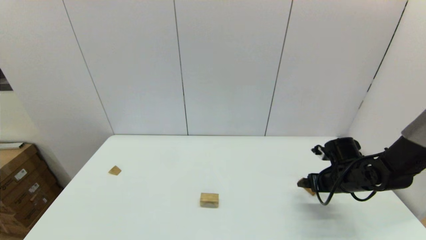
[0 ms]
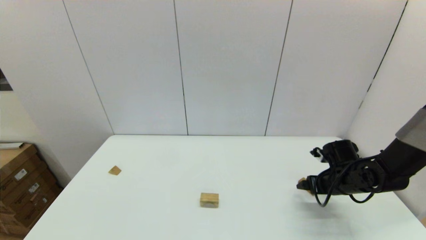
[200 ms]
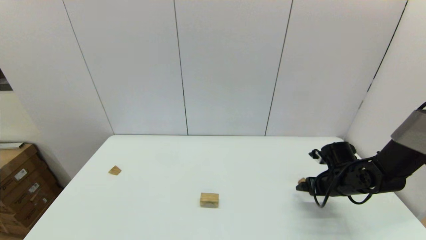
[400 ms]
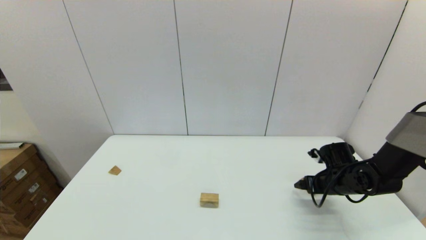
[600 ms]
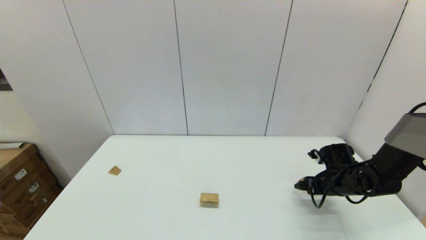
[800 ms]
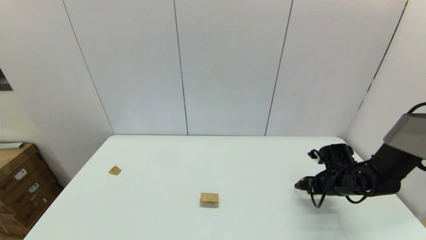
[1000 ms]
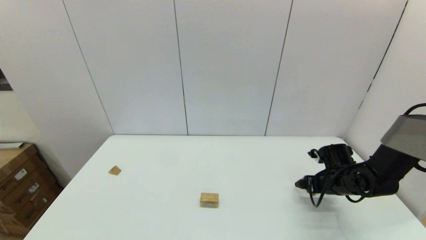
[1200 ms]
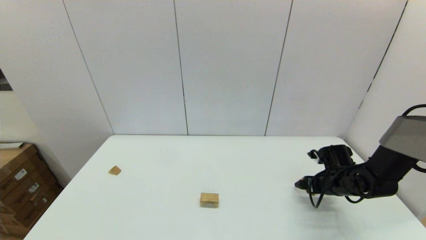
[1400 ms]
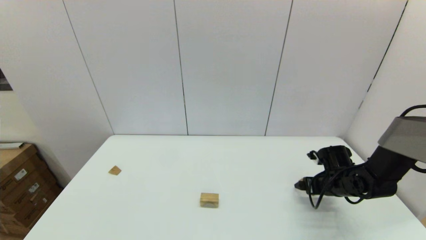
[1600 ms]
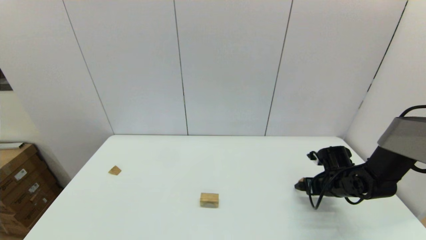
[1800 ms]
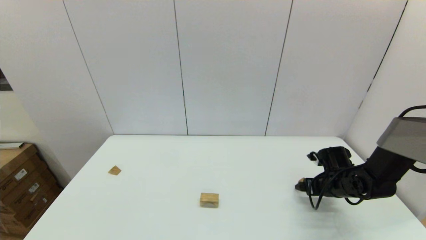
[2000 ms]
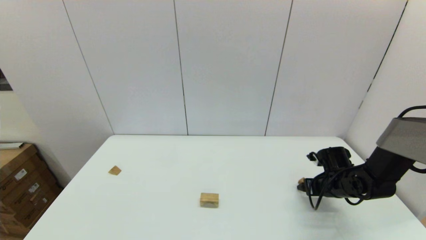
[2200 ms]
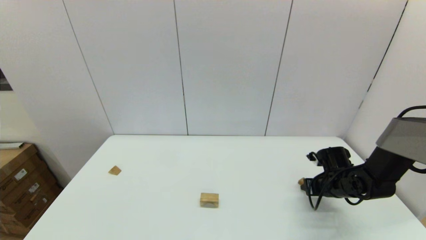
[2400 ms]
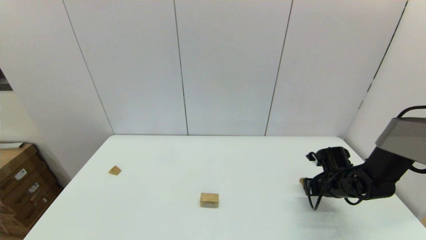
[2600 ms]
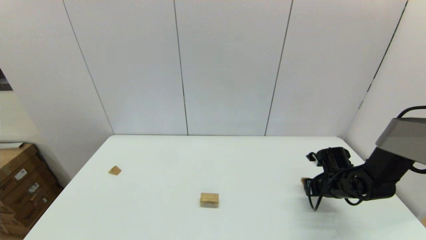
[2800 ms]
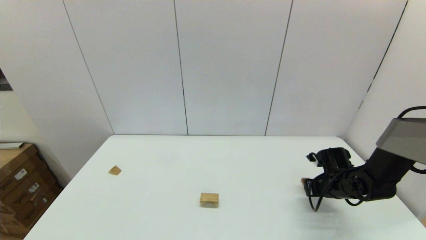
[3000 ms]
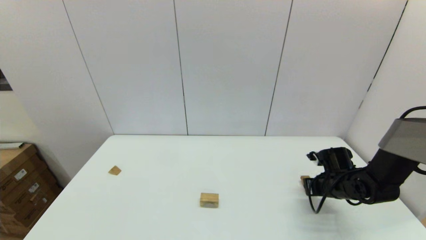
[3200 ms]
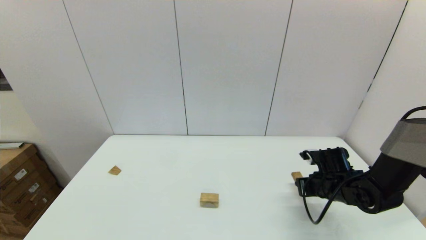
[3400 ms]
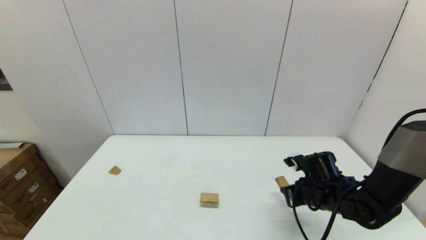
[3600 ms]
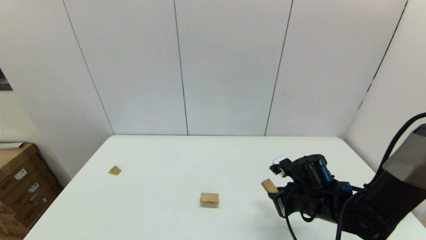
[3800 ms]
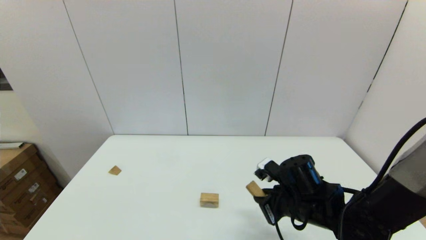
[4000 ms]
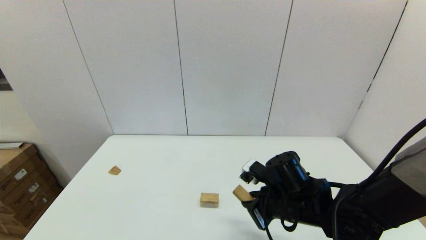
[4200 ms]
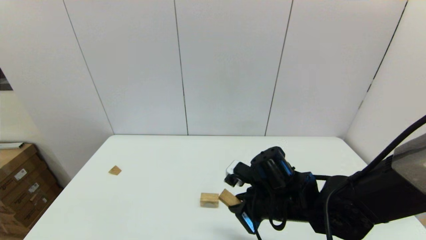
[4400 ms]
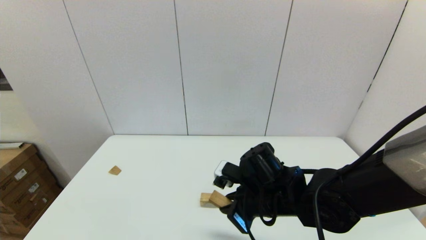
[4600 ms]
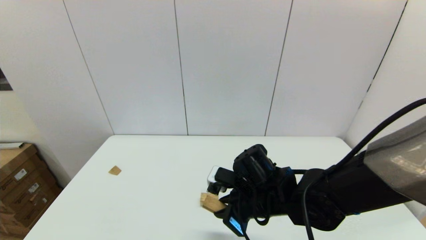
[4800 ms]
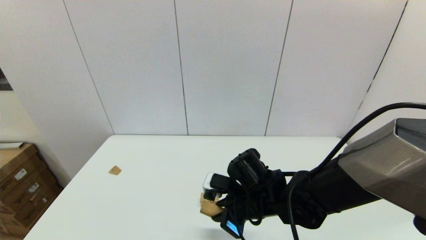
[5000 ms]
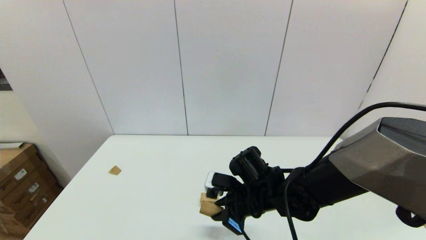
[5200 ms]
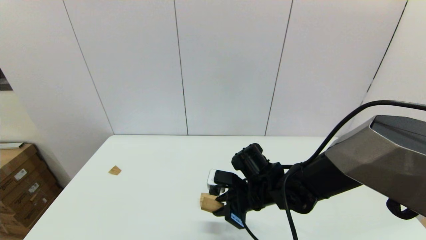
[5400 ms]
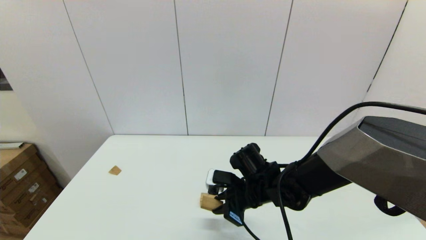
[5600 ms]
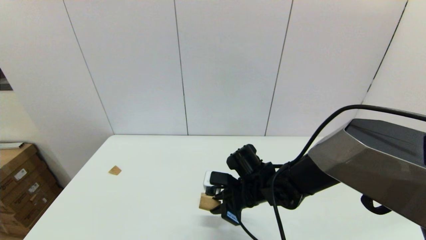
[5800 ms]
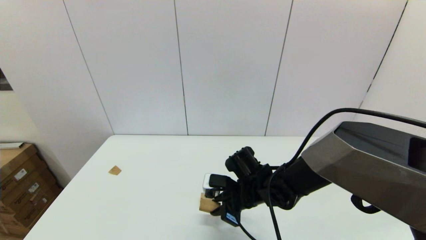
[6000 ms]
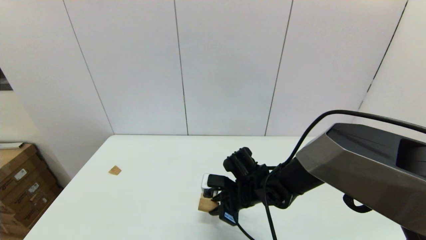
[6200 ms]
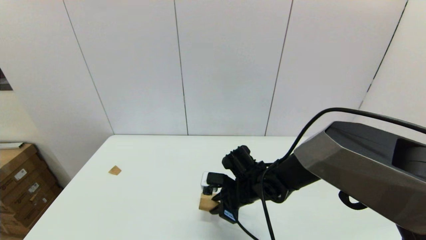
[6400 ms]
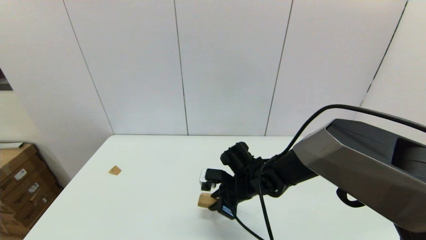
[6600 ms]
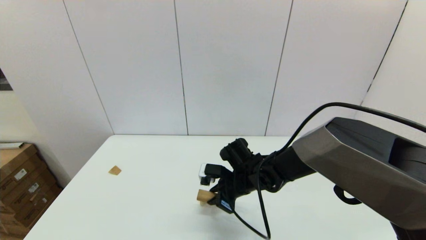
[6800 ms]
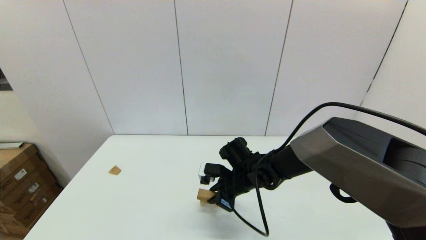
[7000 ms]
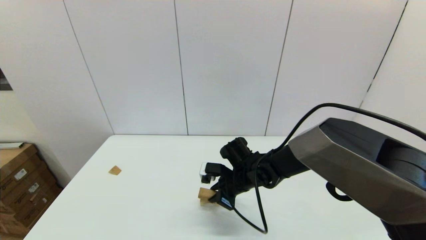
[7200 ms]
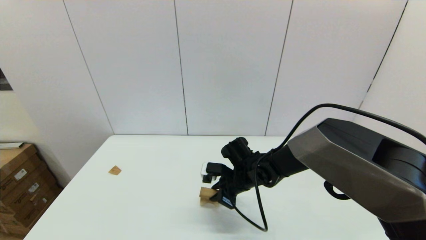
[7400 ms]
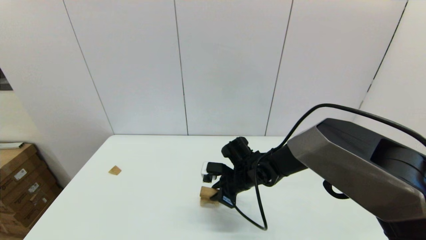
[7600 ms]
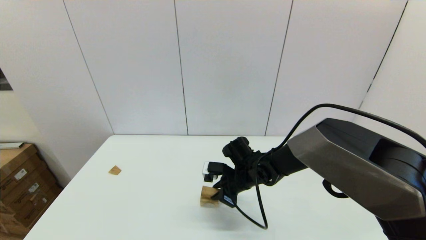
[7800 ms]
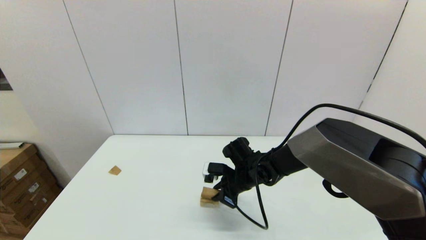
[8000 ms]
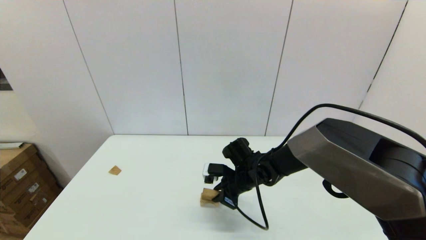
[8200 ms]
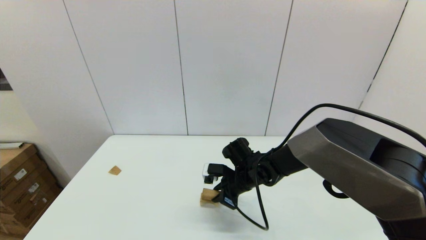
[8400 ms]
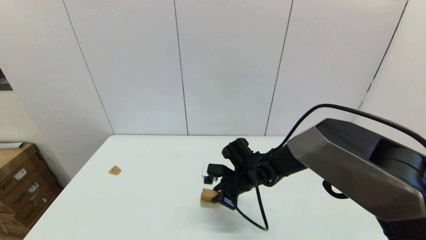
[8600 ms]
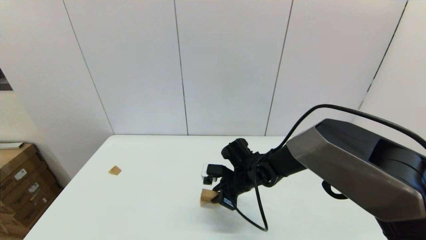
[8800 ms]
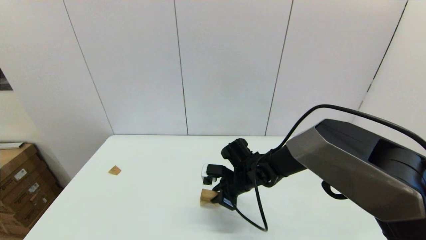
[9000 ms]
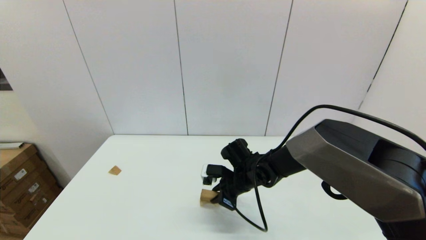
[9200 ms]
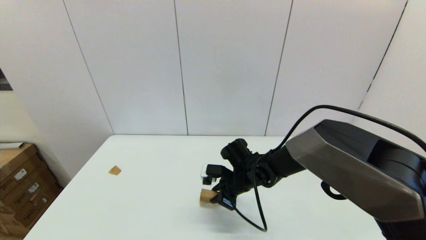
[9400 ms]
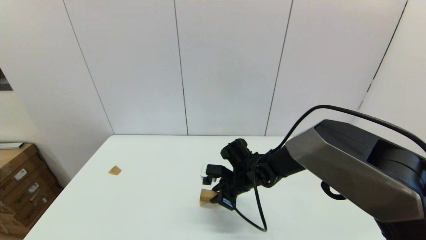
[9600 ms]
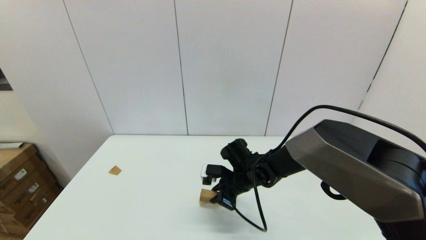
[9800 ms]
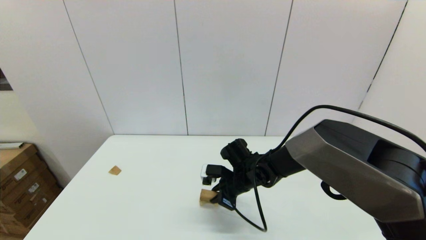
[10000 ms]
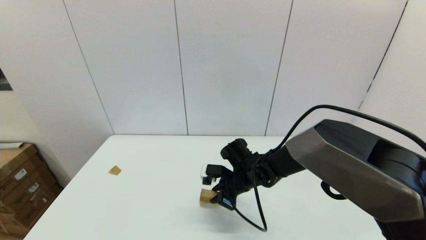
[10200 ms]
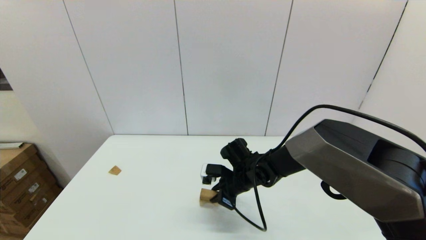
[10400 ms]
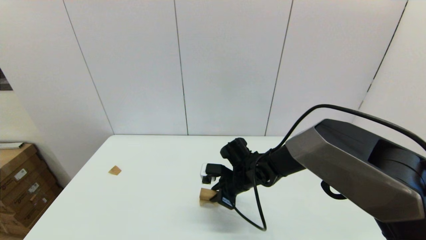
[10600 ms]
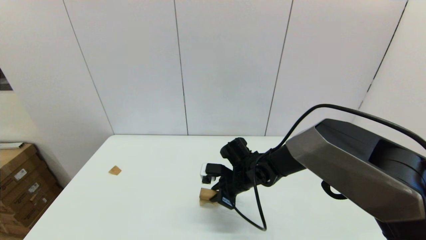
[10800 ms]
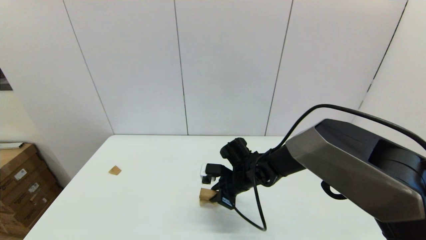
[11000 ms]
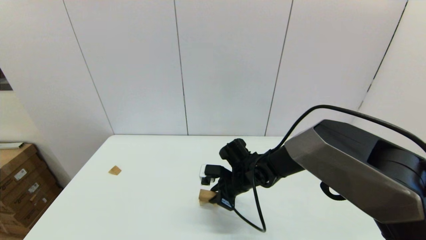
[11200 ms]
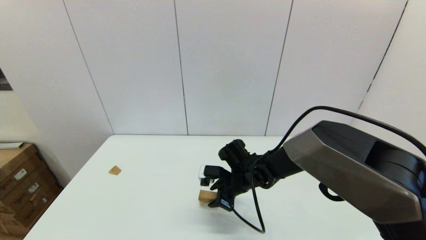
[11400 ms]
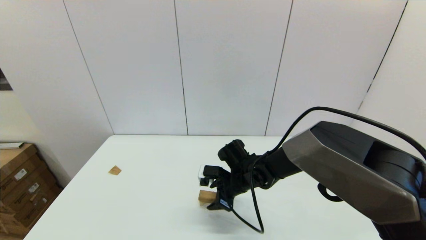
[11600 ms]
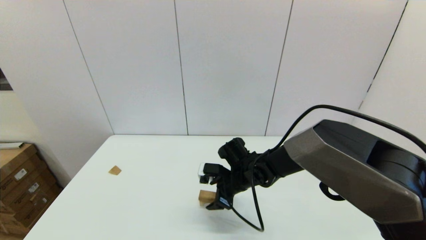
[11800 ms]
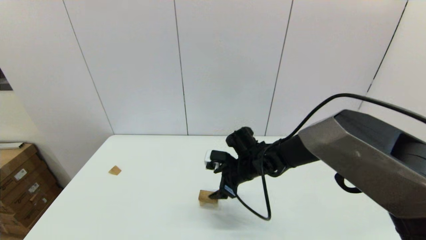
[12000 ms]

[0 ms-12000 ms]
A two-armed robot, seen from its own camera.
Task of the whole recording: place the arched building blocks in the center of the table, set up the rectangular building blocks, and then set up the triangular building blocks.
Step, 0 ms to 2600 ms: Grasp the box-shaped block with the right gripper.
Step, 2800 ms to 11200 ms: Place the box-shaped block onto the arch-shaped block with the right gripper.
0 ms to 1600 ms: There are only small adjustments of the grippers.
1600 ms to 3000 ms: The right gripper closes.
3000 ms to 4400 ms: The right gripper heads to the left, upward and backward, covering approximately 25 cm.
4400 ms to 6000 ms: The right gripper heads forward and downward, covering roughly 10 cm.
6000 ms to 7600 ms: There are only small adjustments of the grippers.
7600 ms to 10400 ms: Both grippers stay about where they are.
10400 ms to 12000 ms: The right gripper opens up.

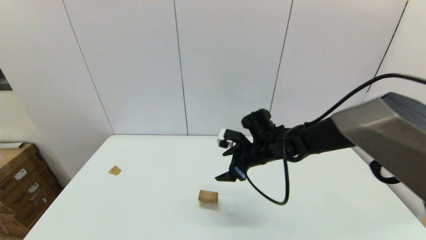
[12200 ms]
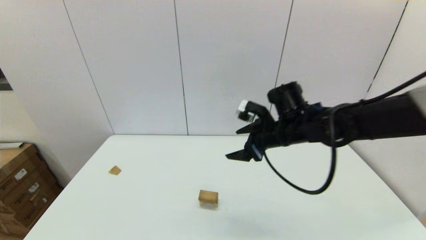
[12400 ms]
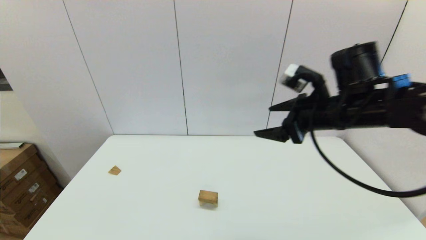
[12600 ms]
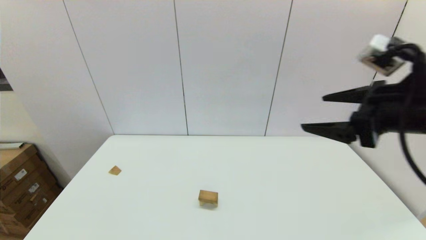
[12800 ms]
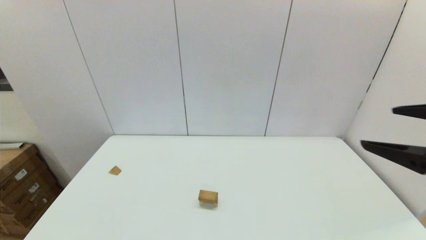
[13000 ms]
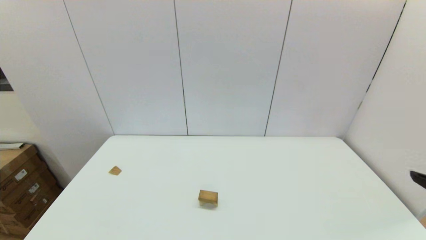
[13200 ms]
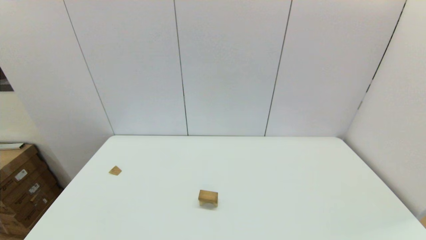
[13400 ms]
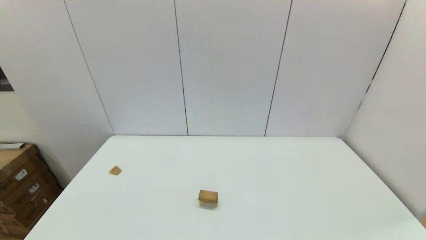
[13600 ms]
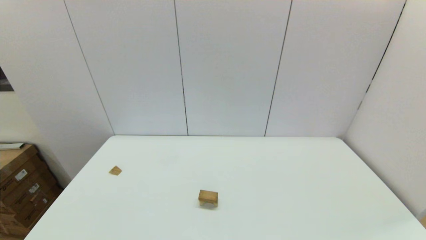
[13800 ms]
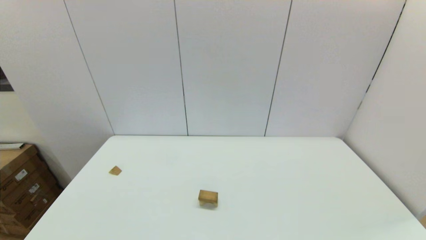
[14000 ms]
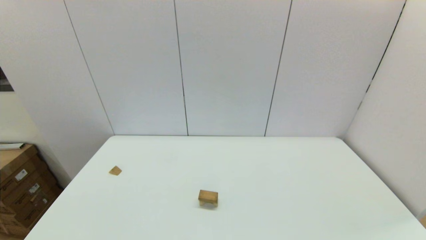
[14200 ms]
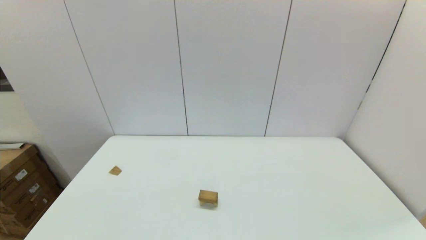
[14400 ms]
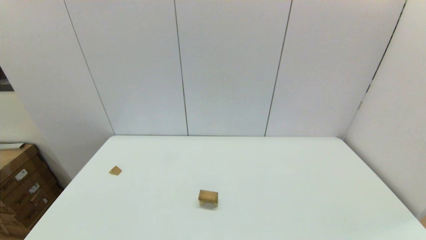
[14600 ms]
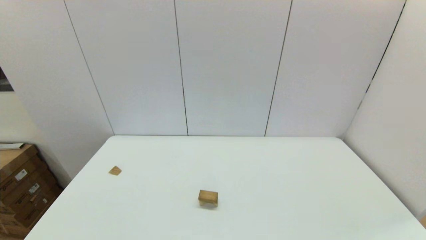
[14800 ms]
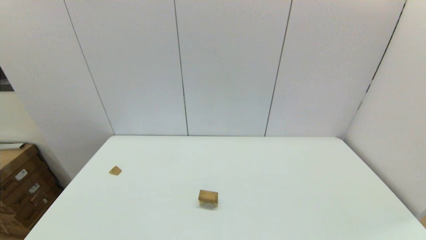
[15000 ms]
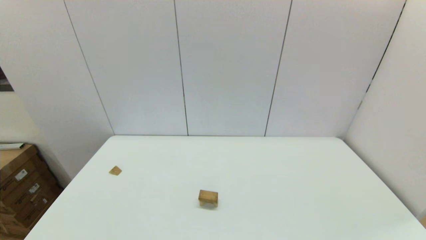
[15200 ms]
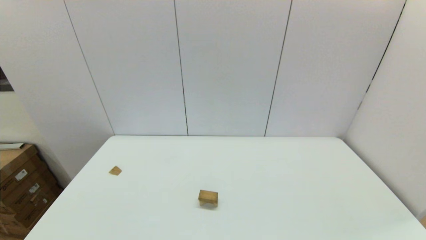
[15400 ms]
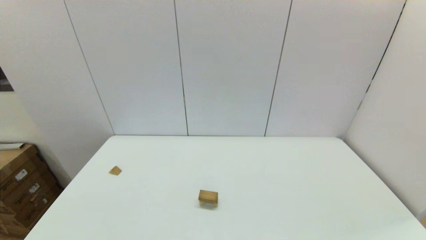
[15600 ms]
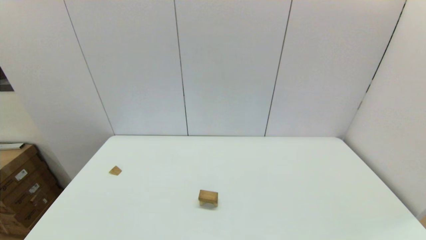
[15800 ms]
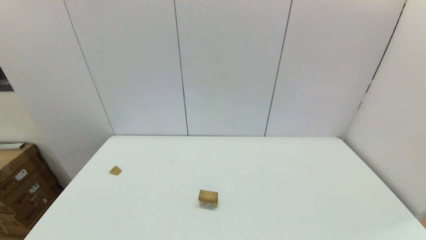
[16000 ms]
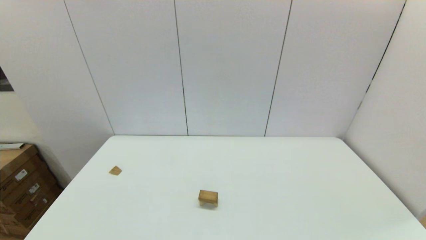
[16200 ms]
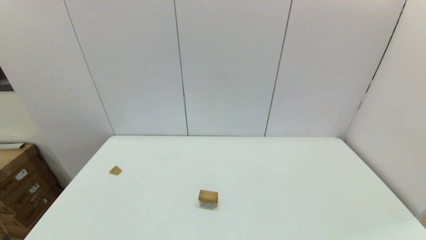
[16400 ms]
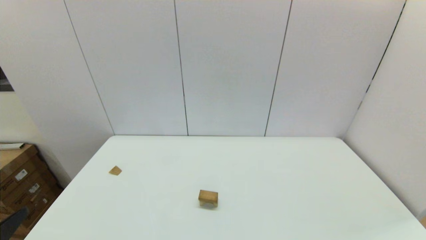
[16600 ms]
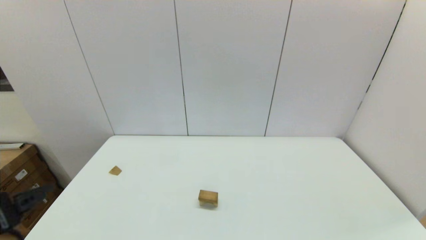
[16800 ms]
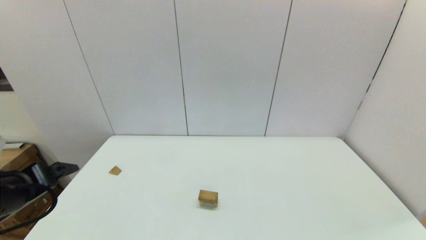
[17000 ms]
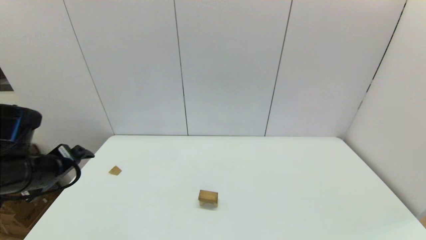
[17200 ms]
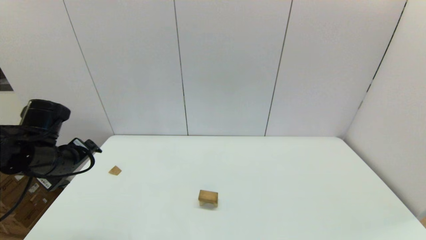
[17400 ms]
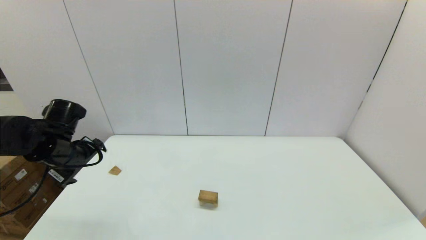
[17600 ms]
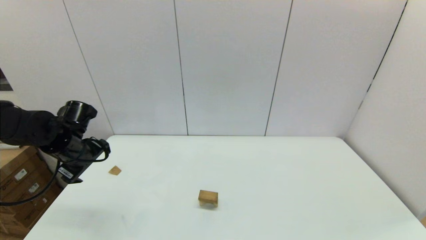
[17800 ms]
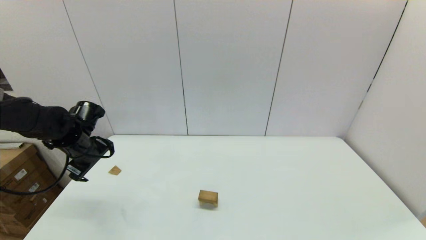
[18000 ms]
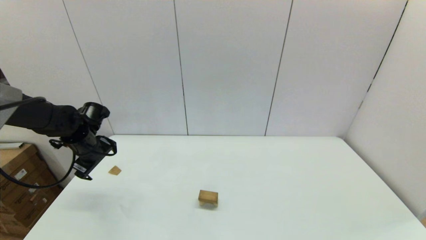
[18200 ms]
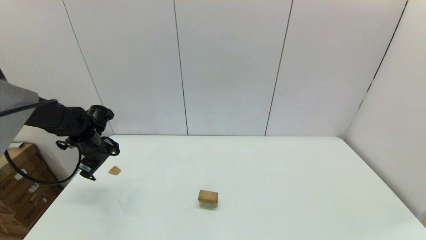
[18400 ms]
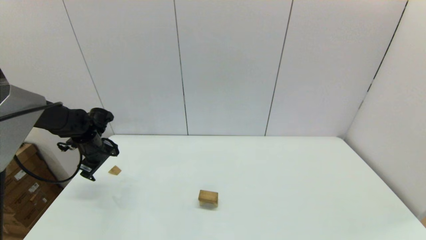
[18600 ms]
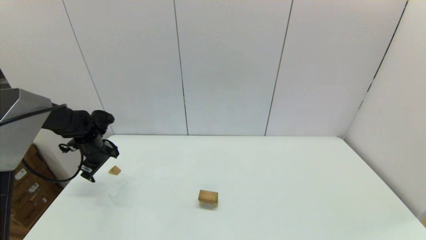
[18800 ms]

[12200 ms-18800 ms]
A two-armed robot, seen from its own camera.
Task of the whole recording: place the arched building blocks in the center of the table, set up the rectangular building blocks, and then set up the triangular building blocks.
12200 ms to 13800 ms: The right gripper heads backward and to the right, covering roughly 40 cm.
15400 ms to 17200 ms: The left gripper travels forward by approximately 25 cm.
17200 ms to 18800 ms: The left gripper travels forward and downward by some 25 cm.
